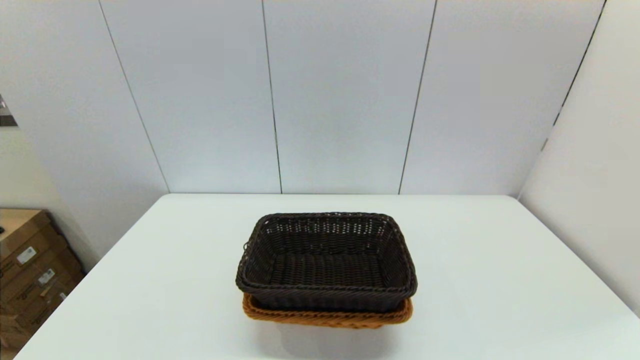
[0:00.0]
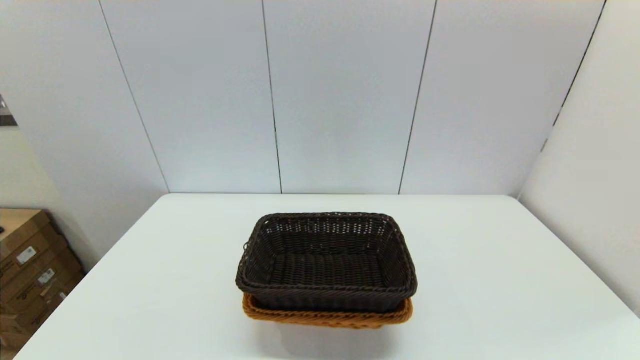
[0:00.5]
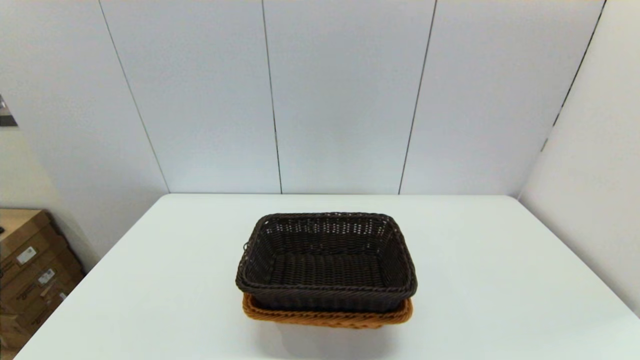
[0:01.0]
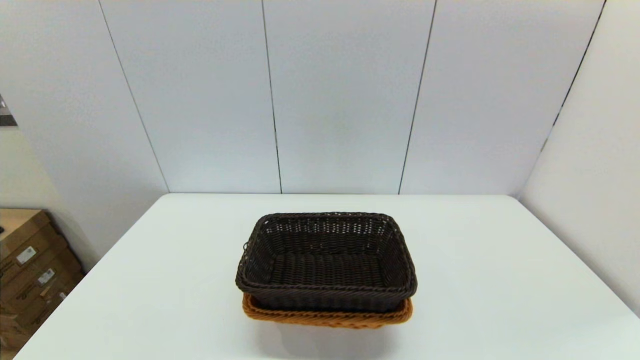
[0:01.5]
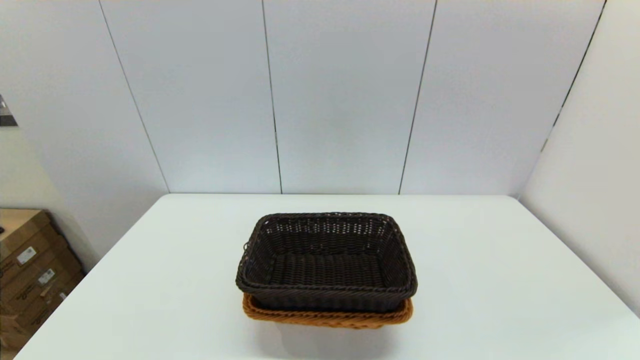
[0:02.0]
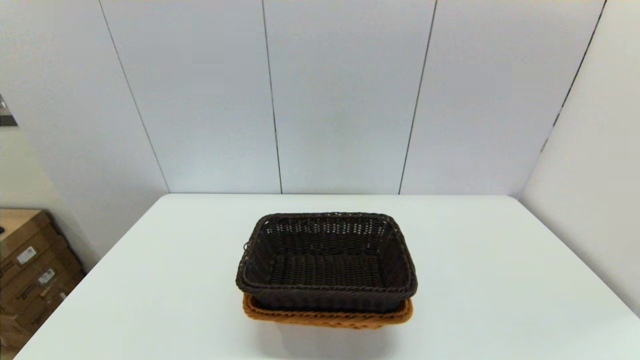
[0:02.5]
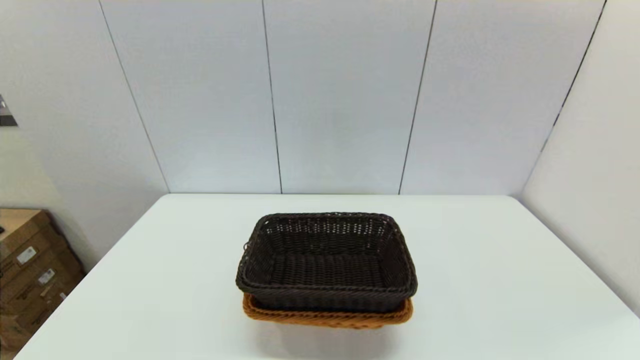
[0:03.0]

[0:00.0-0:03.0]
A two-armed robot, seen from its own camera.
Task of the whole recording: stack a basket on top of another basket.
0:01.5 to 0:03.0: Both grippers stay put.

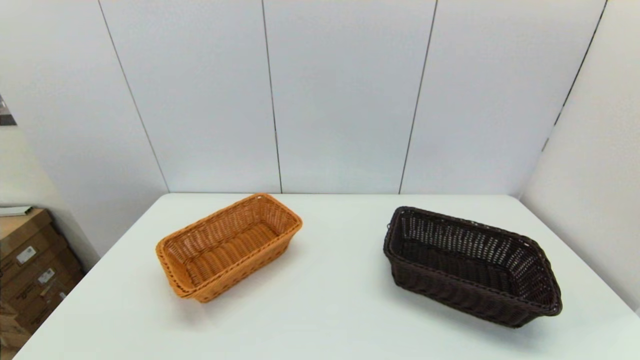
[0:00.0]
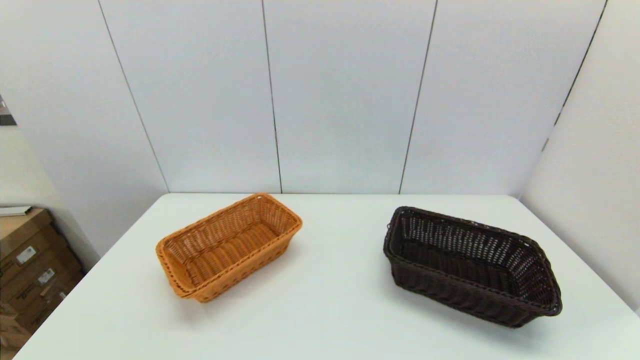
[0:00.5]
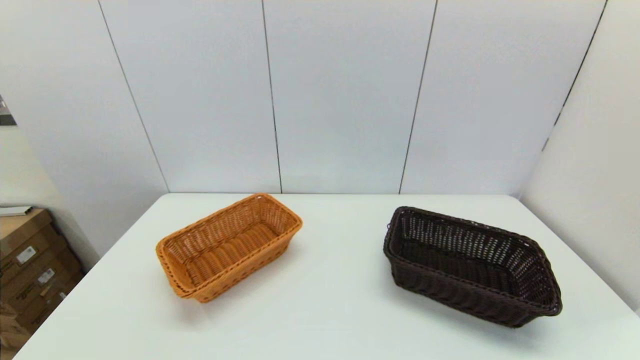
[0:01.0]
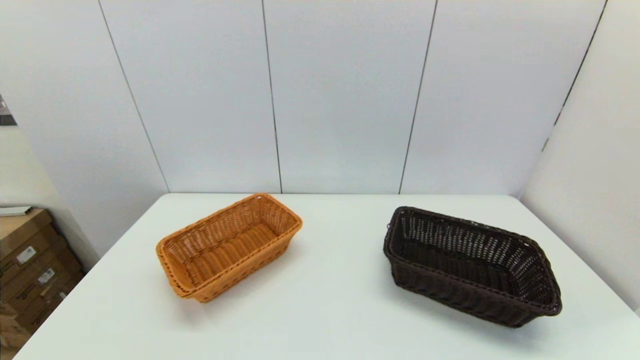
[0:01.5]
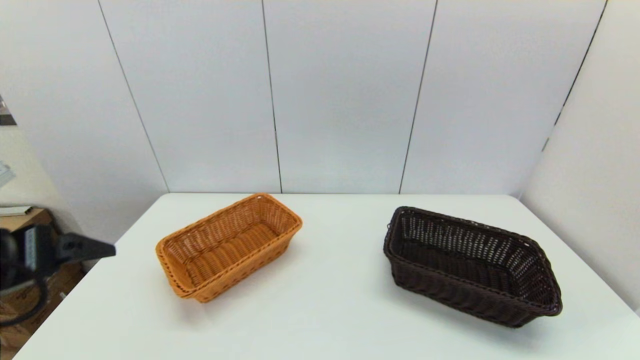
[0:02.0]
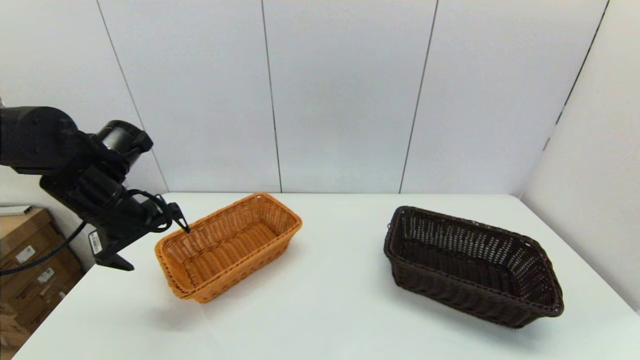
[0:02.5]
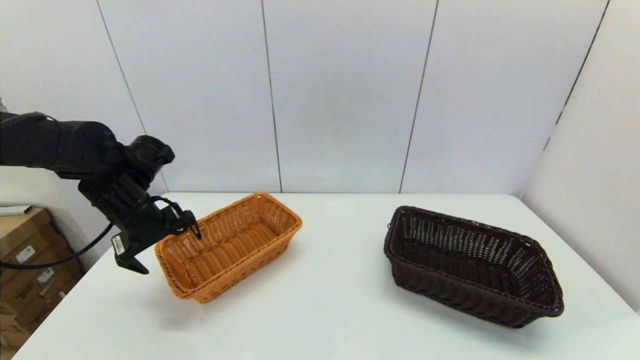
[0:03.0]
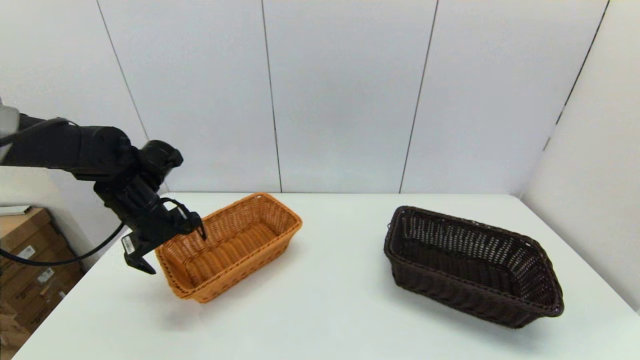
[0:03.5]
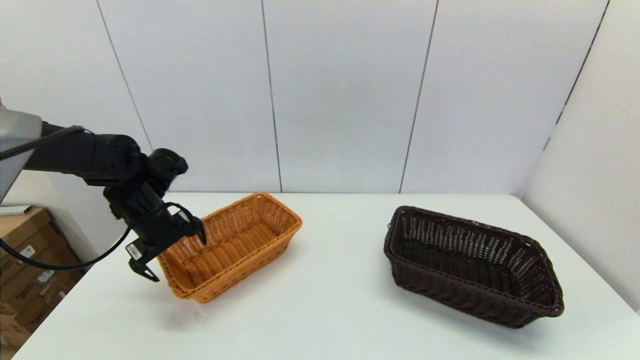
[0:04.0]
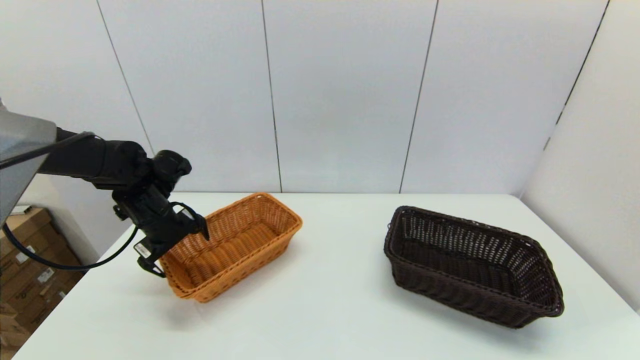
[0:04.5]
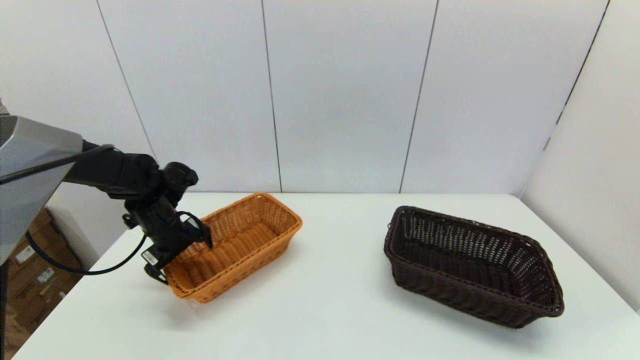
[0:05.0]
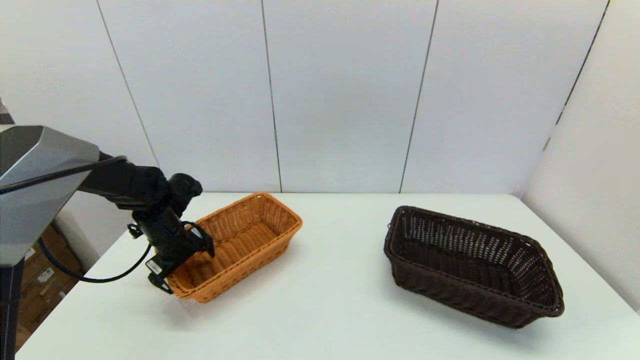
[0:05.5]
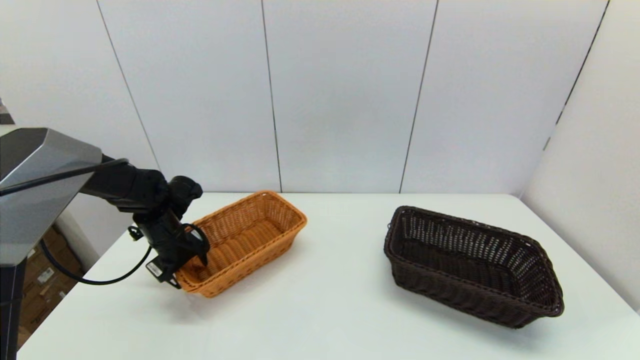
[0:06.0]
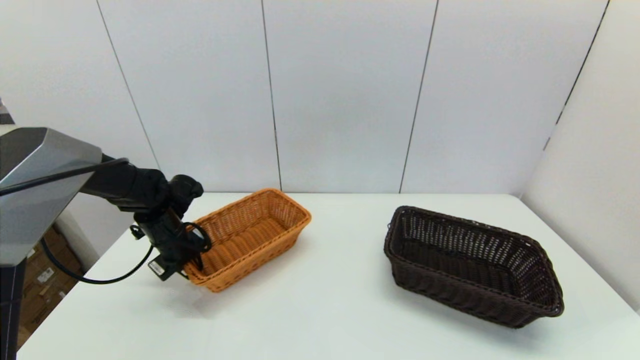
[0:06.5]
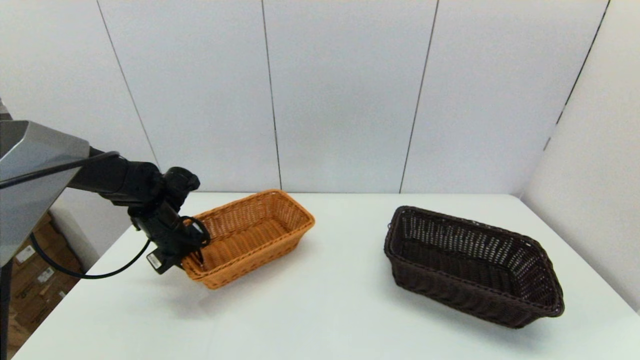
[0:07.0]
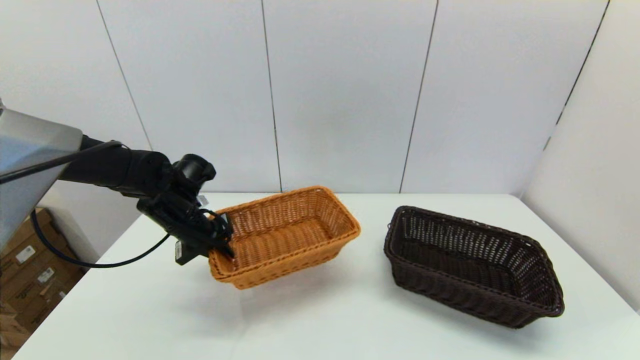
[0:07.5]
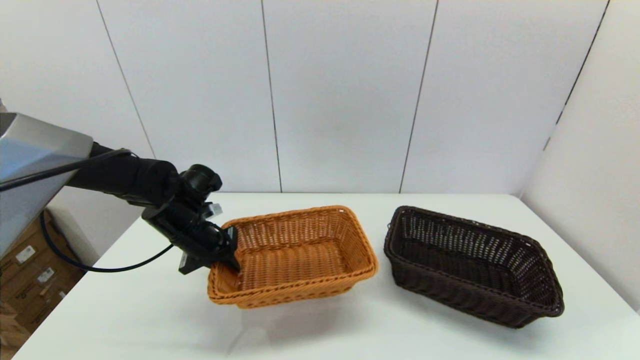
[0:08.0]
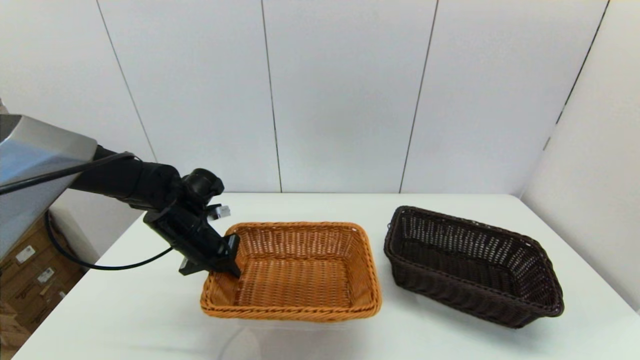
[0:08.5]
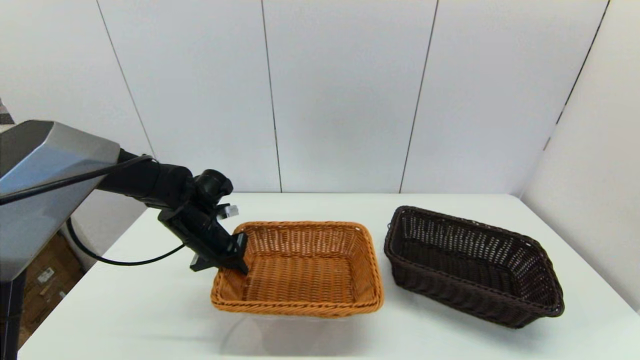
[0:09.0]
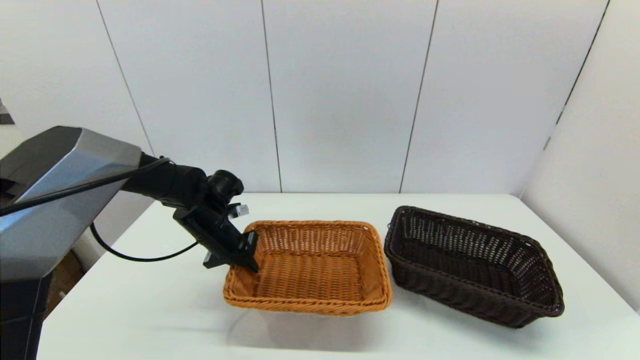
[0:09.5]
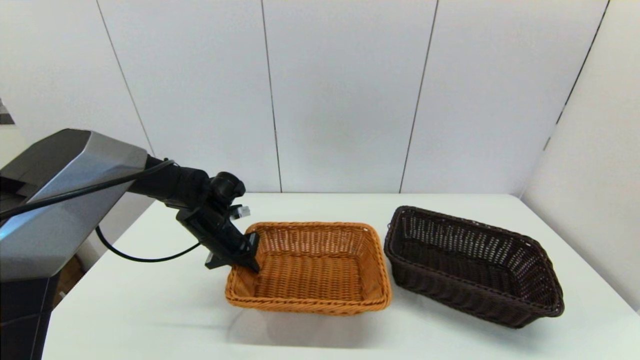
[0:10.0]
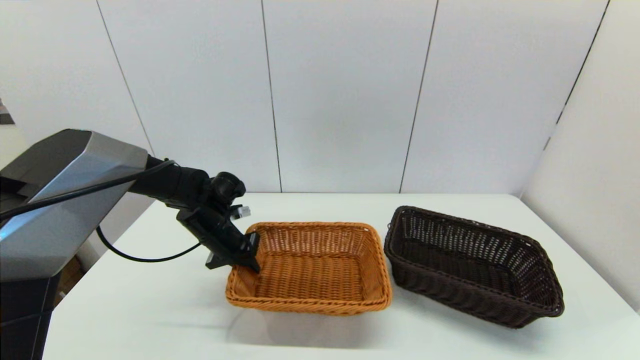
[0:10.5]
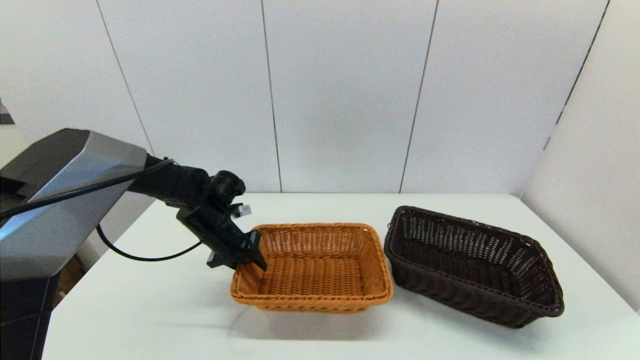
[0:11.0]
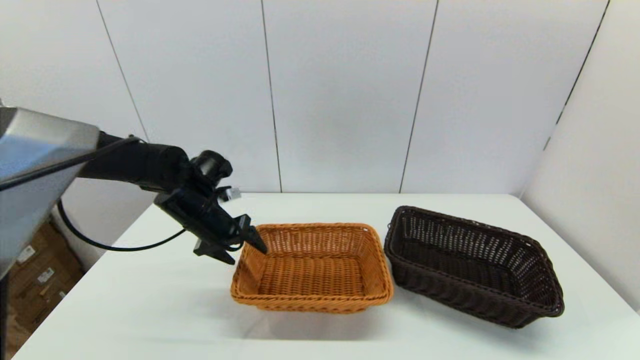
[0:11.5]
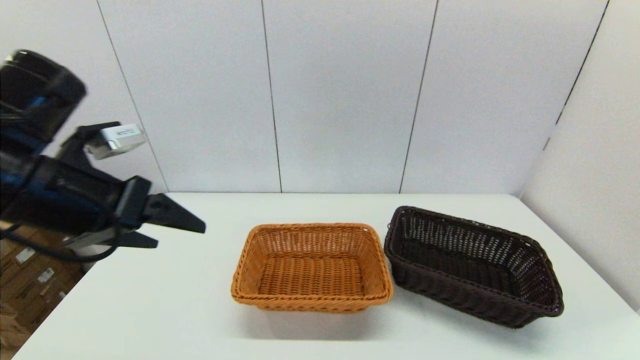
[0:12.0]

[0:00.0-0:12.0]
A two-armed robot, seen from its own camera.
Task of the whole recording: stack a basket on top of another basket.
Step, 0:02.0 to 0:06.0: Grasp the light basket with the left gripper.
Step, 0:06.5 to 0:11.5: Place the light basket on the middle of the table with the left gripper.
0:00.0 to 0:02.0: The left gripper travels forward and upward by approximately 25 cm.
0:02.0 to 0:04.0: The left gripper goes some 25 cm forward and downward.
0:04.0 to 0:06.0: The left gripper goes roughly 5 cm downward, and closes.
0:06.0 to 0:08.0: The left gripper shifts roughly 5 cm to the right, and closes.
0:08.0 to 0:10.0: The left gripper shifts by roughly 5 cm.
0:10.0 to 0:12.0: The left gripper travels upward and backward by roughly 25 cm, and opens its fingers.

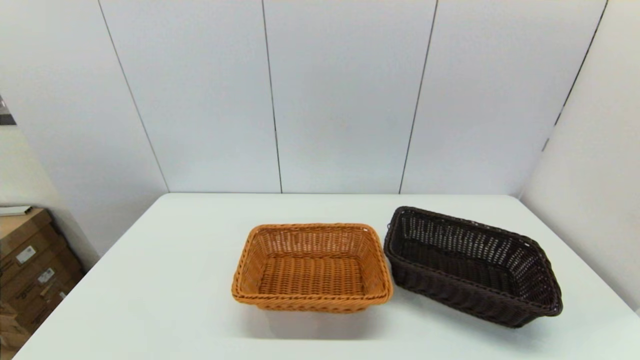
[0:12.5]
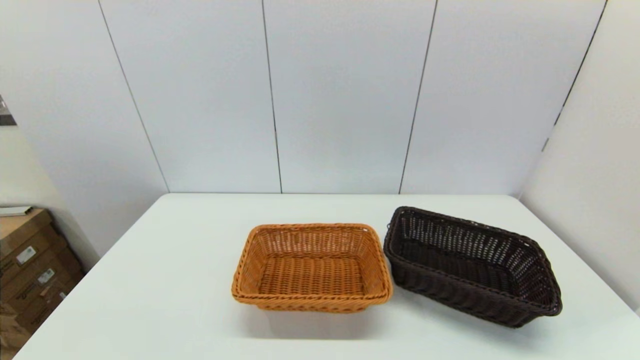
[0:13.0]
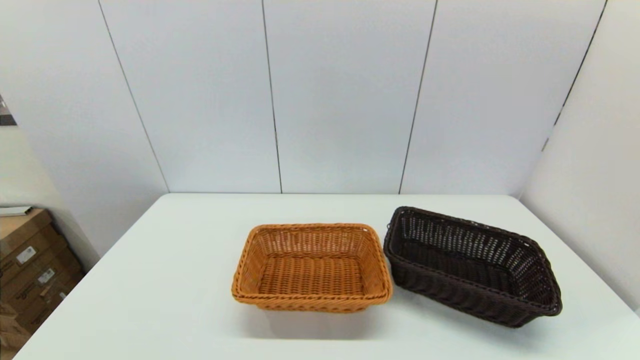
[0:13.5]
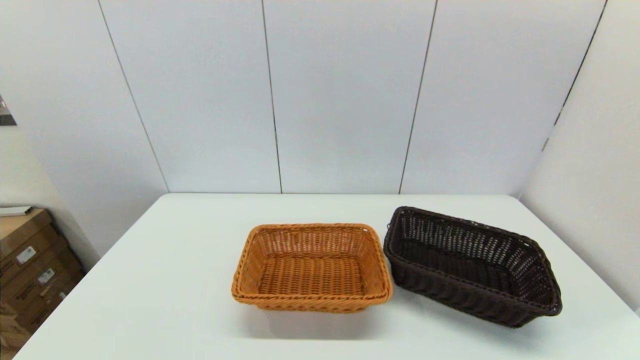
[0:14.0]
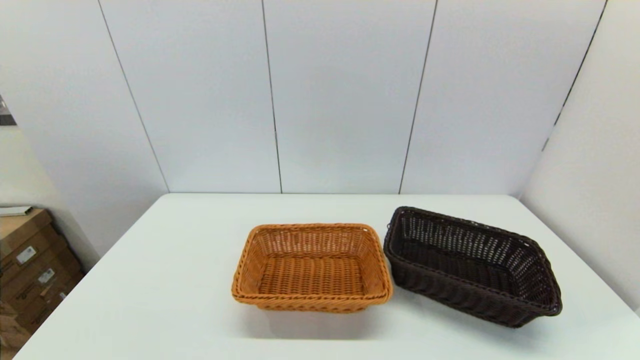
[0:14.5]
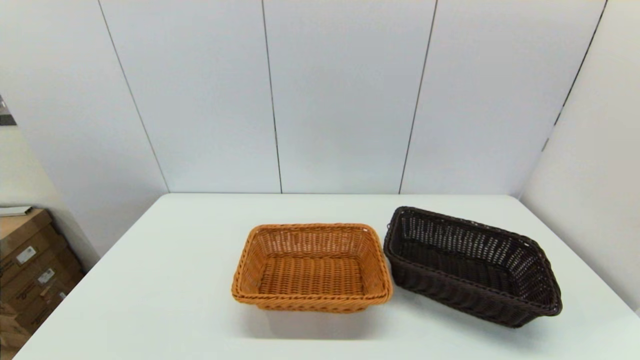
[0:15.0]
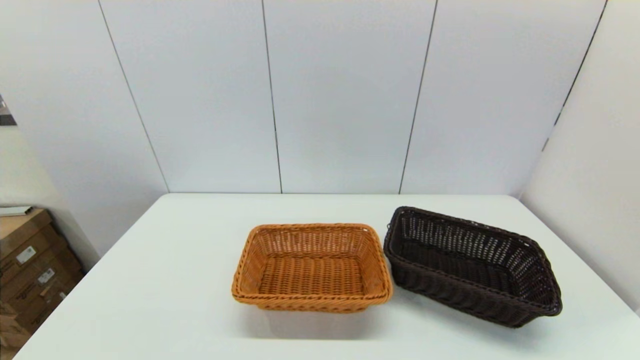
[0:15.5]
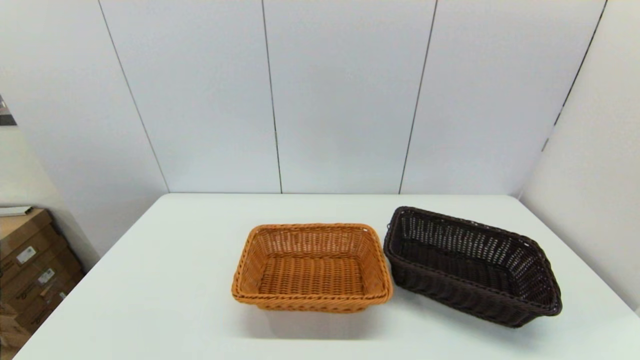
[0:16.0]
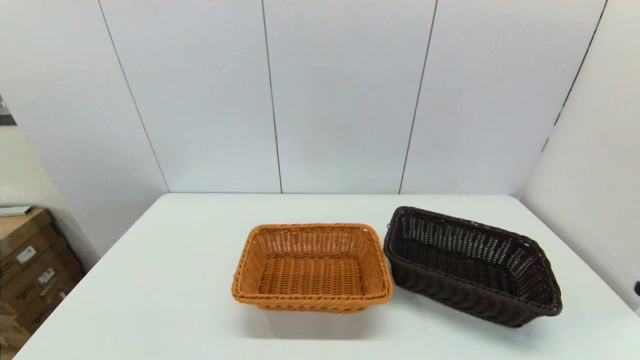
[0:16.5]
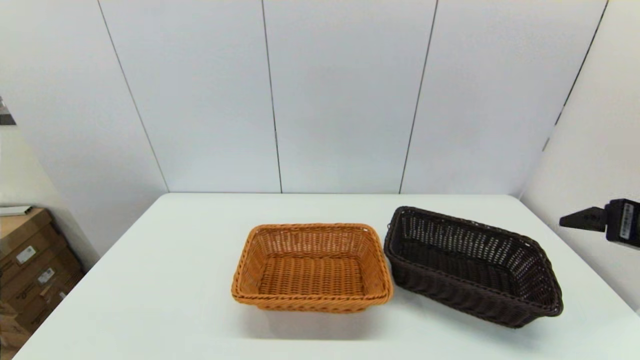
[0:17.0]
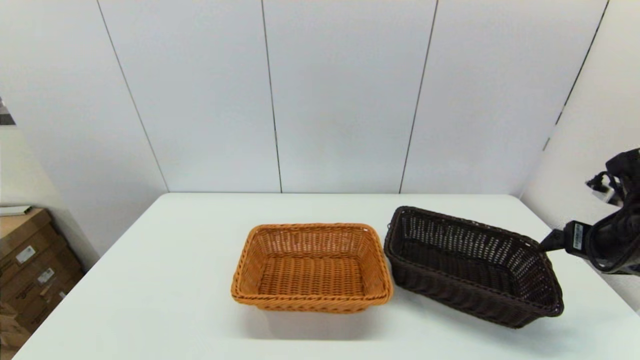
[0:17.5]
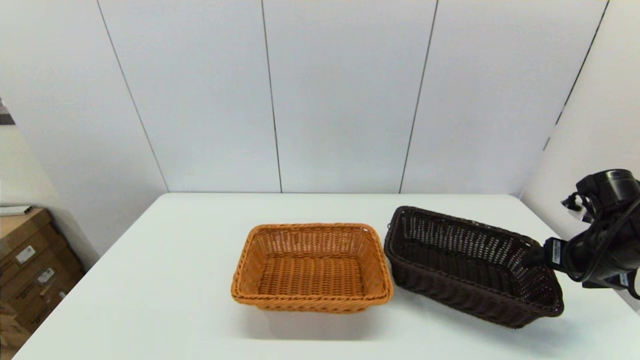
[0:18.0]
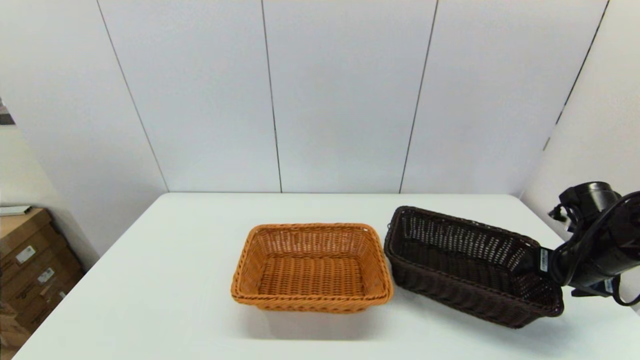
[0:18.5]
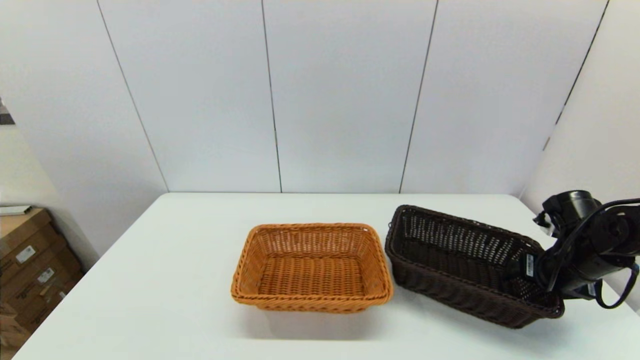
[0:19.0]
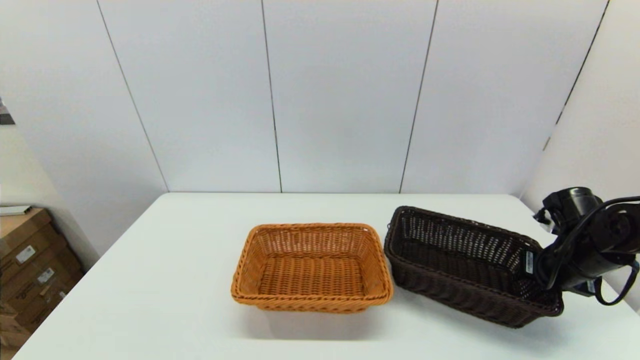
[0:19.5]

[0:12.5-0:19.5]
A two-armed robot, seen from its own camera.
Task of the whole recording: stack a basket on top of another basket.
0:16.0 to 0:17.5: The right gripper travels forward by some 30 cm.
0:17.5 to 0:19.5: The right gripper travels downward by about 10 cm, and closes.
